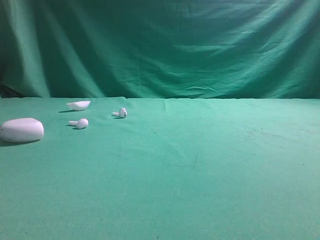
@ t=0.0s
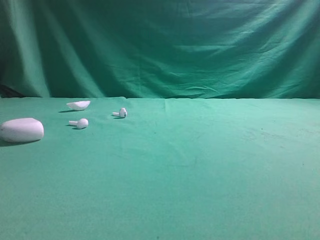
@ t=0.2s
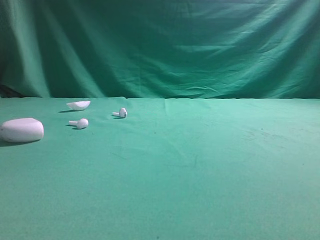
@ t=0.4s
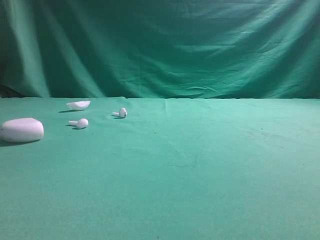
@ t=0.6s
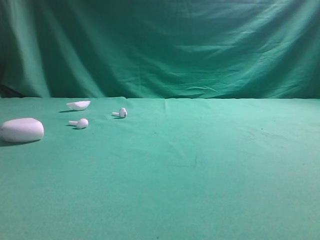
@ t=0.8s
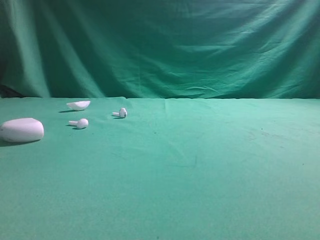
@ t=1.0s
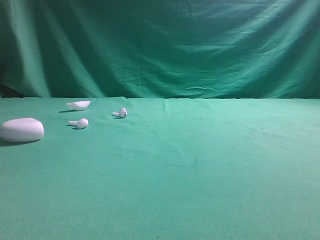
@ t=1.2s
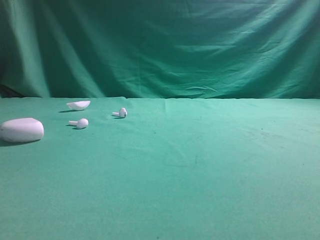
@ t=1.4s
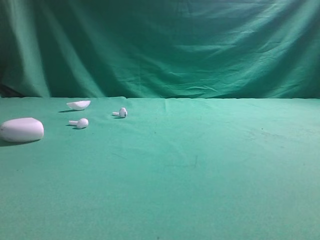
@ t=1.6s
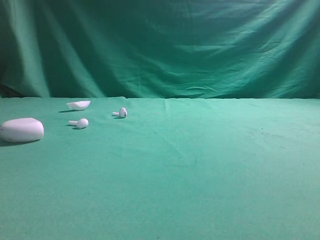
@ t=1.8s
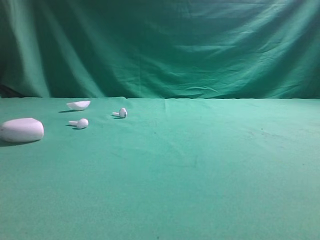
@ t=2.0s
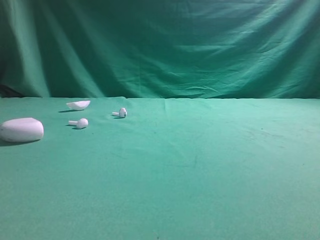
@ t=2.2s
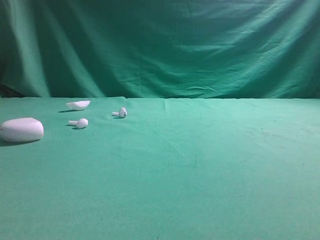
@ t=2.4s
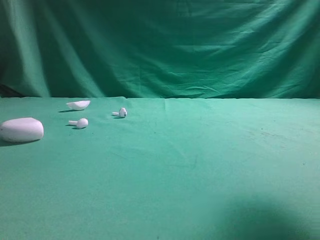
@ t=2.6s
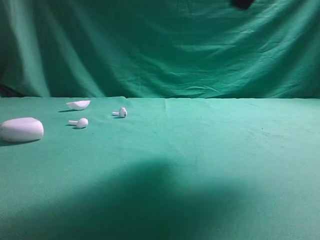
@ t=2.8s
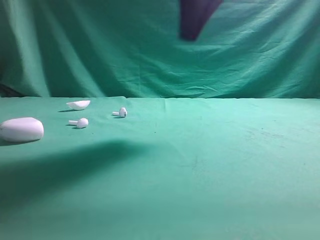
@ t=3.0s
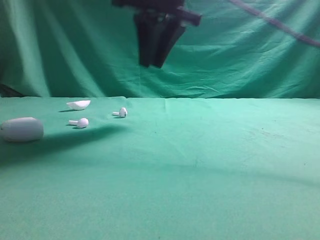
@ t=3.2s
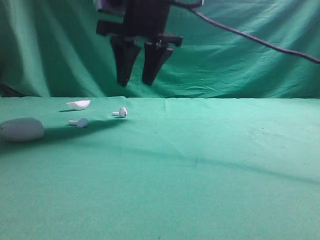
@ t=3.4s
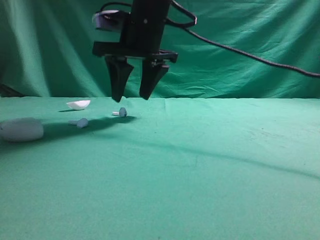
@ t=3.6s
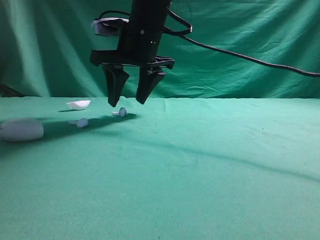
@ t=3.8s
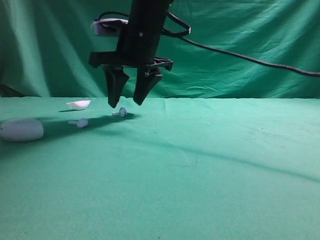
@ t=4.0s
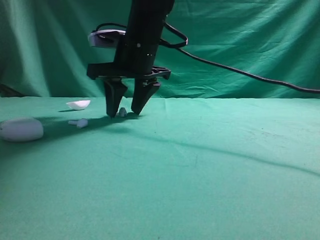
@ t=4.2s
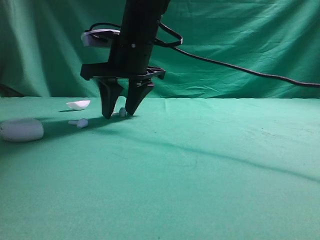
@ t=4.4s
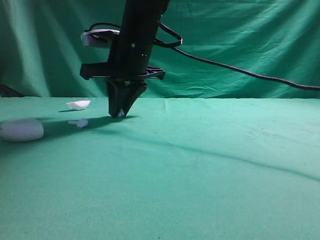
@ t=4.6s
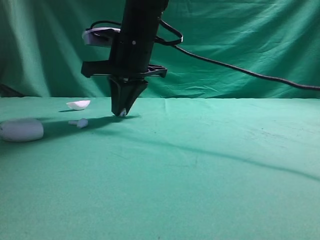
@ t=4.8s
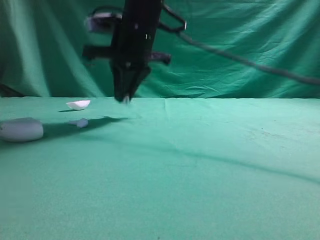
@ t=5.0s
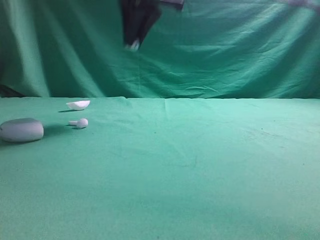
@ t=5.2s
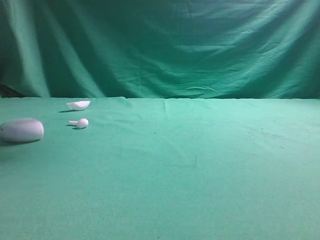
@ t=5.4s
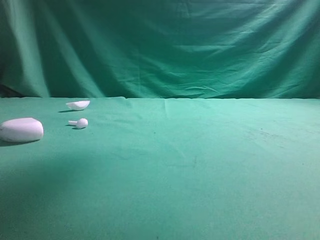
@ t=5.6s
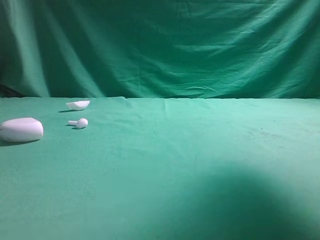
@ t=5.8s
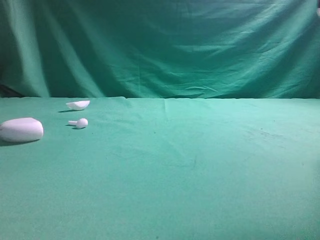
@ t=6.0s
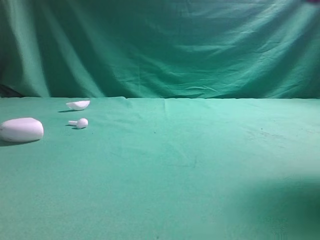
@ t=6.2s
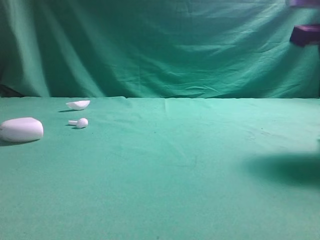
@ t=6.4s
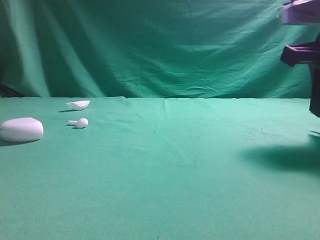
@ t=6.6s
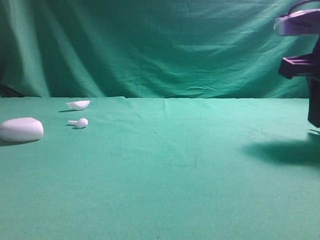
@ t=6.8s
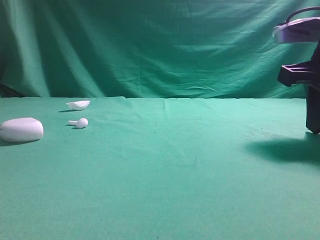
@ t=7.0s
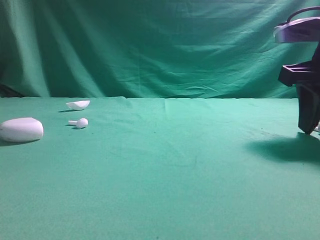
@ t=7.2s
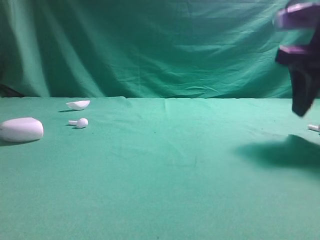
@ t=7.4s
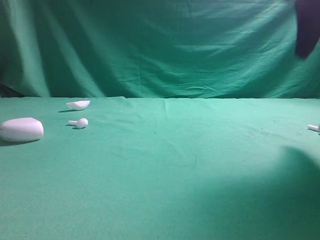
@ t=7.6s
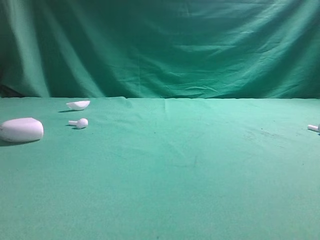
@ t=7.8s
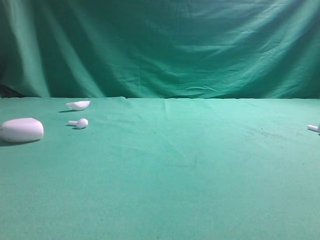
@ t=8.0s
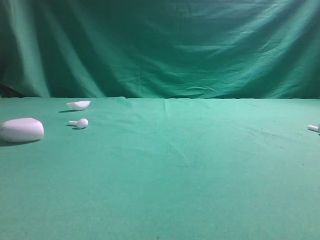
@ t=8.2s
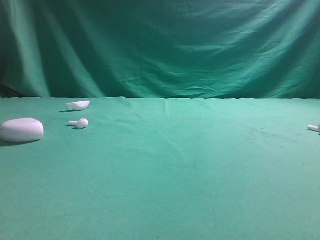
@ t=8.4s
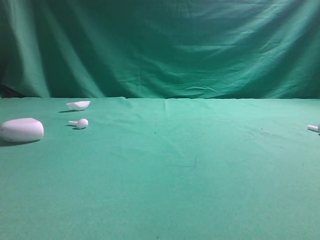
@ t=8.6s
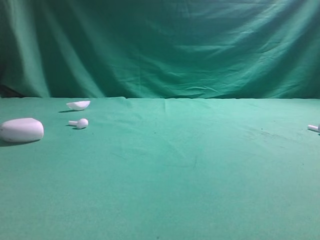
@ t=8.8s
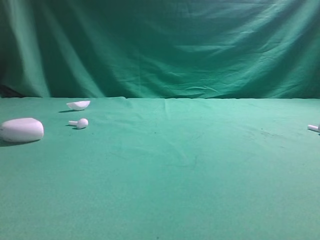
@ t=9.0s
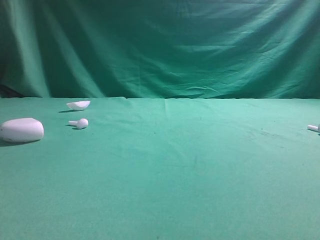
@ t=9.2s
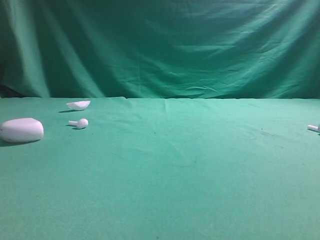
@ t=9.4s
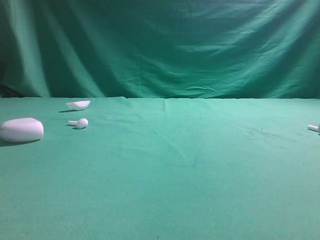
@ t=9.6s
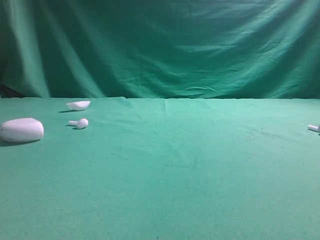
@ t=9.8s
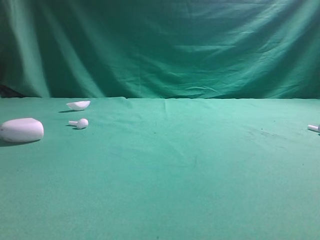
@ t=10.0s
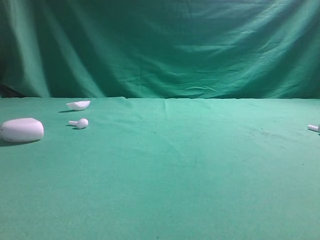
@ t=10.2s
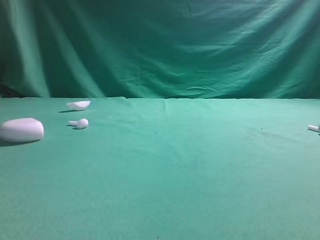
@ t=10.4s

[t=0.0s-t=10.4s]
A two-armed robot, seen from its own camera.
Step, t=0.0s to t=5.0s: Grasp the Bluetooth earbud.
Step, t=5.2s to t=7.4s: Place bluetooth earbud on the right side of the table.

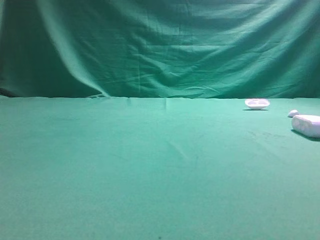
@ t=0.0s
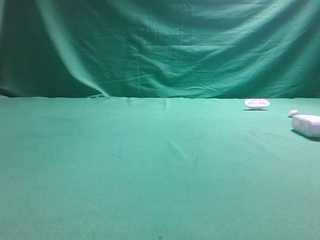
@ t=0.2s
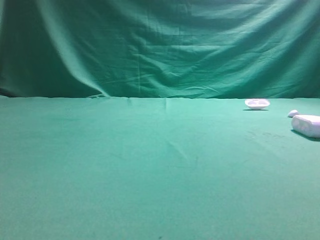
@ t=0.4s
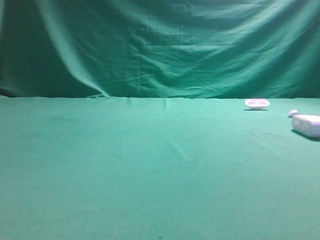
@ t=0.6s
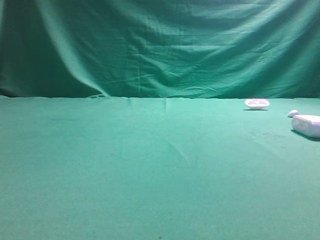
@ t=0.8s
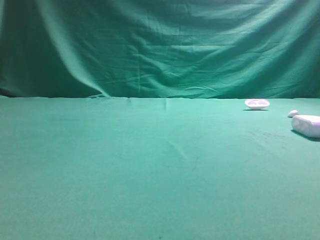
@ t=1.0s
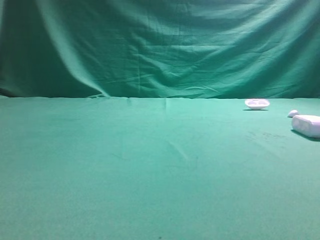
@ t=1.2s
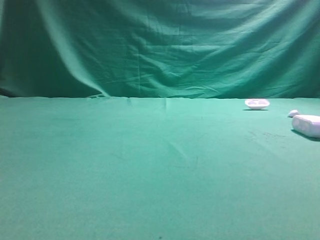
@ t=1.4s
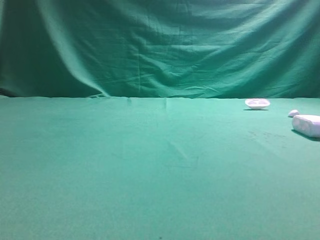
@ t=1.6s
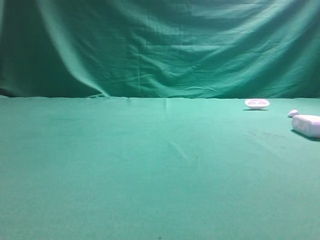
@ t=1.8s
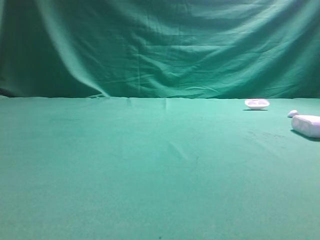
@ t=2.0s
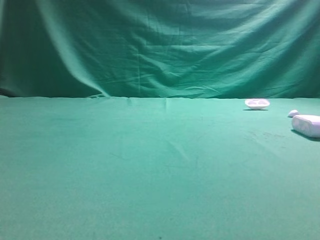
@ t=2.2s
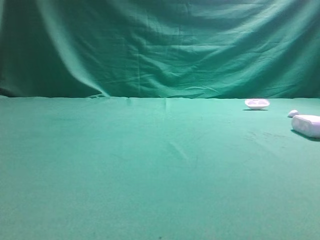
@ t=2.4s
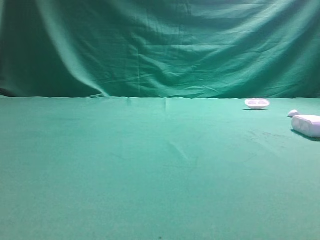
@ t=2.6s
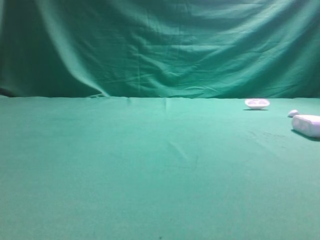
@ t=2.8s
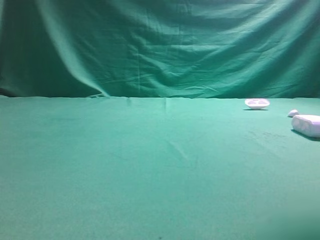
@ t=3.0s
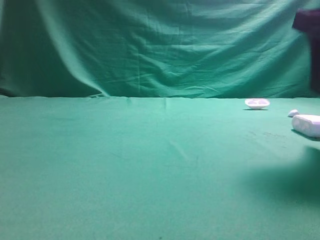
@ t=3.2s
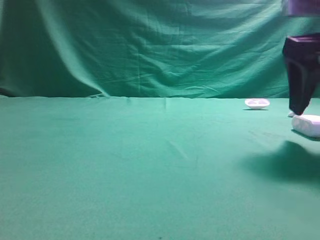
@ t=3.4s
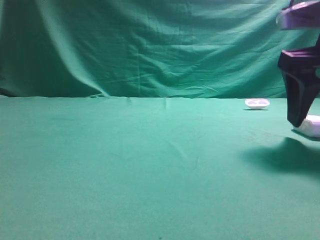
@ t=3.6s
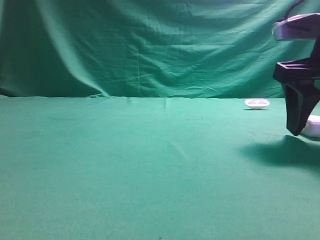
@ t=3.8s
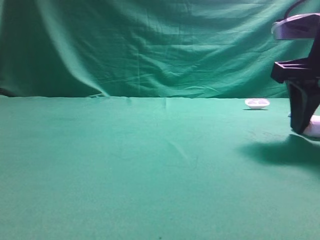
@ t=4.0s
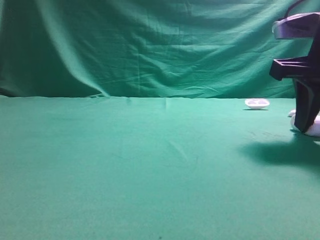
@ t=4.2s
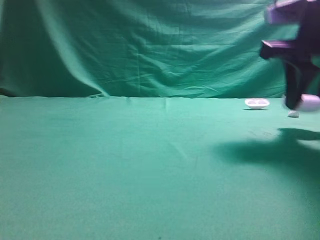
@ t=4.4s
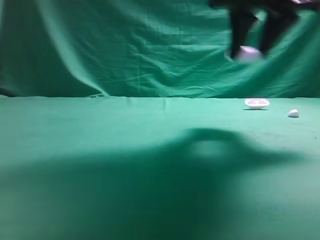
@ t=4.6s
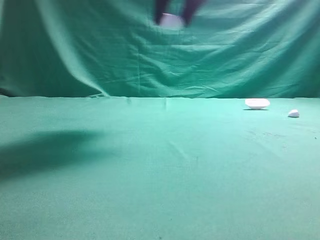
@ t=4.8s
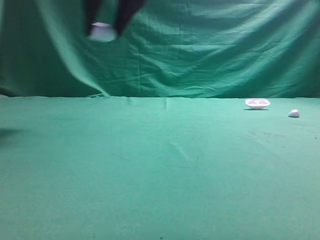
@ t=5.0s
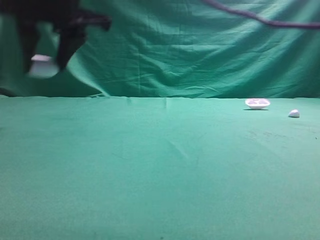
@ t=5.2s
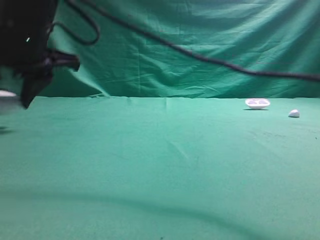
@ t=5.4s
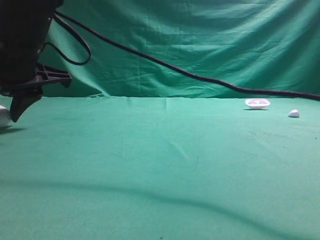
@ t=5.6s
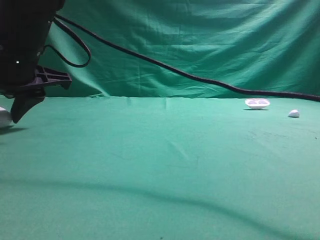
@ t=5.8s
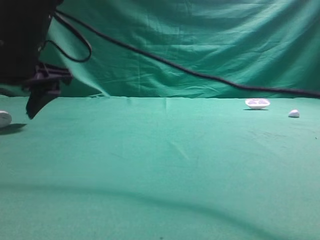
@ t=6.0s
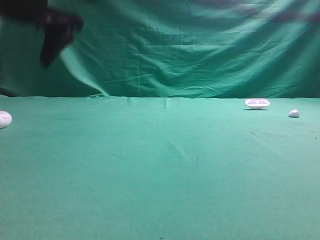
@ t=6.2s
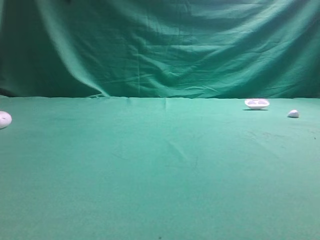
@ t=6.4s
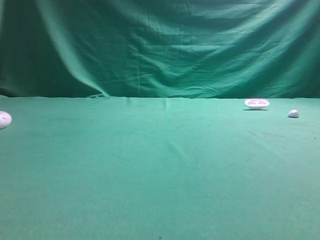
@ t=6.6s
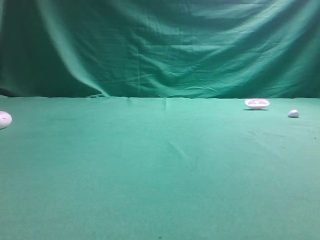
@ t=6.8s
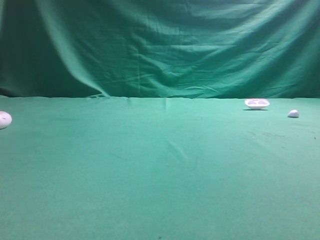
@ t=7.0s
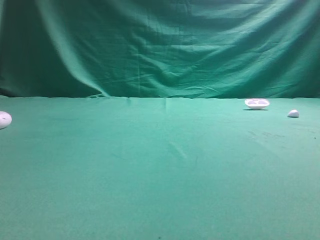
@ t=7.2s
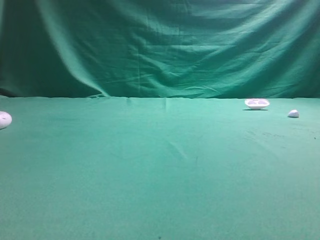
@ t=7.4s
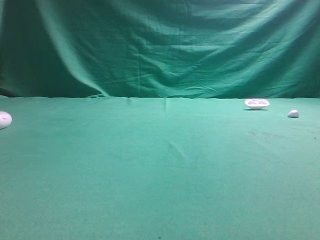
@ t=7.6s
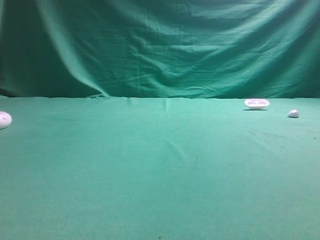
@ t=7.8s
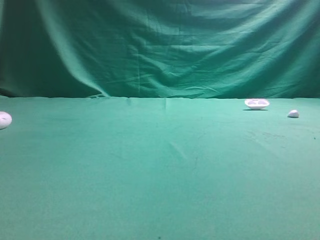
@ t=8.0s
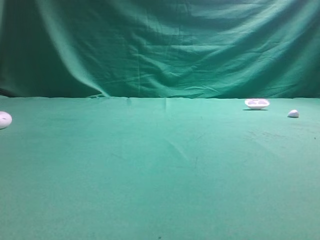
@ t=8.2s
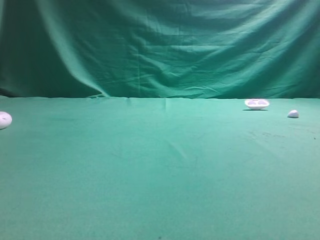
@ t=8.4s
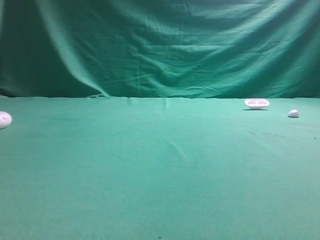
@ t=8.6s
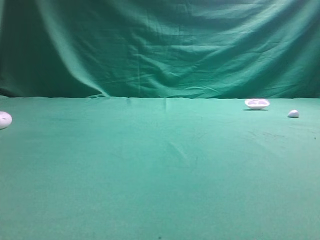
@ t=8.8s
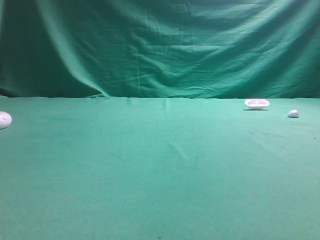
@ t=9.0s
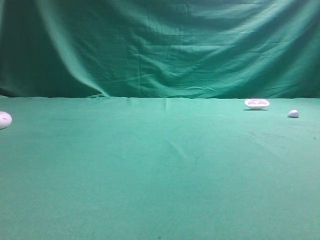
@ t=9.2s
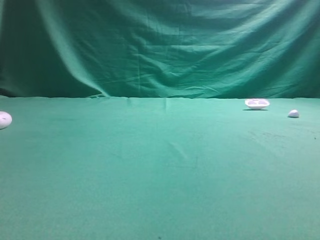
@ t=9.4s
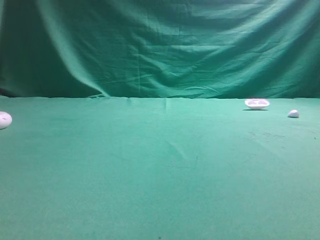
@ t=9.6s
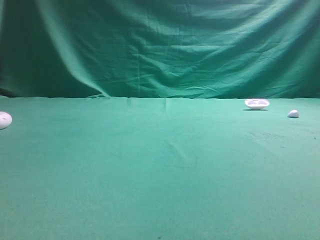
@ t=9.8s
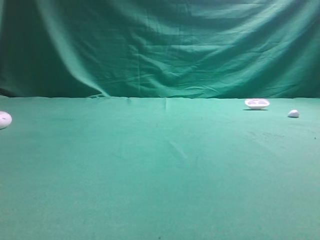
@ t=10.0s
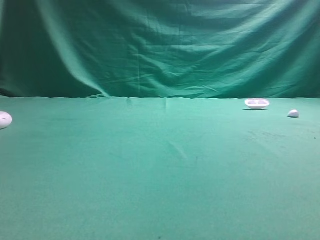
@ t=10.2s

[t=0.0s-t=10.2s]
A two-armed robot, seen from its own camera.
Step, t=0.0s to t=4.4s: Grasp the Bluetooth earphone case.
Step, t=4.6s to t=6.0s: Place bluetooth earphone case on the left side of the table.

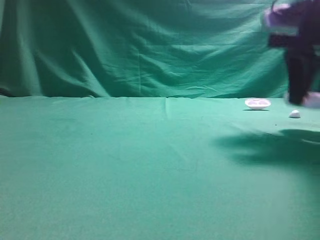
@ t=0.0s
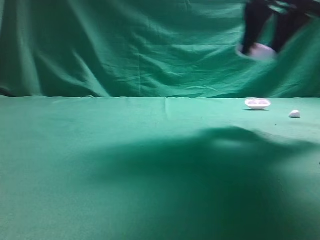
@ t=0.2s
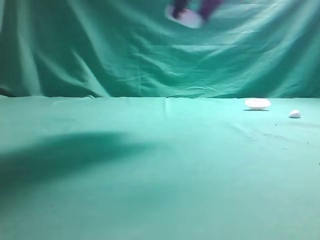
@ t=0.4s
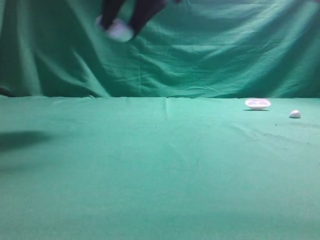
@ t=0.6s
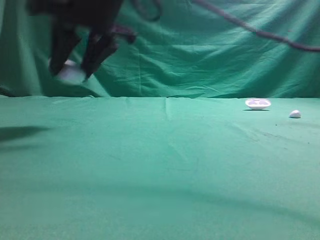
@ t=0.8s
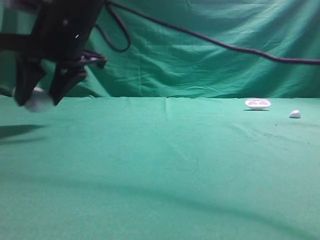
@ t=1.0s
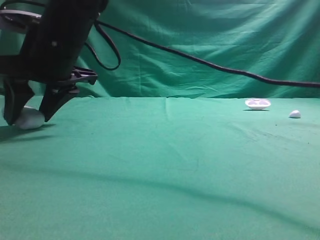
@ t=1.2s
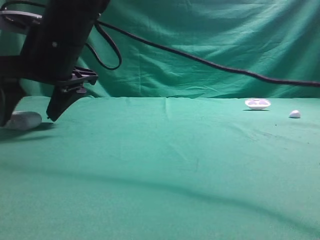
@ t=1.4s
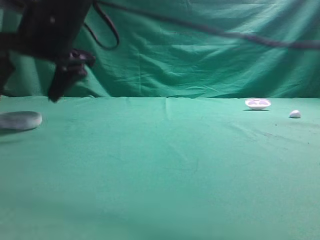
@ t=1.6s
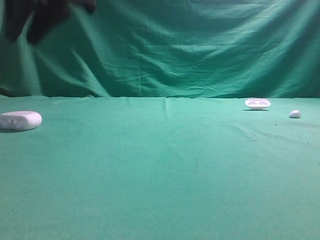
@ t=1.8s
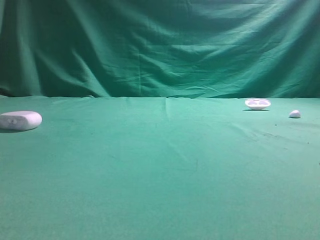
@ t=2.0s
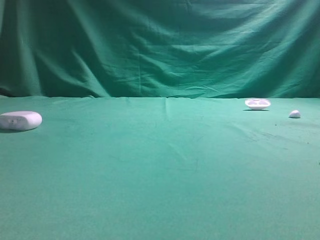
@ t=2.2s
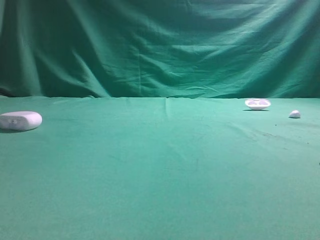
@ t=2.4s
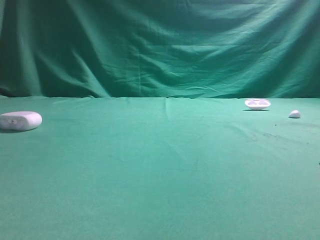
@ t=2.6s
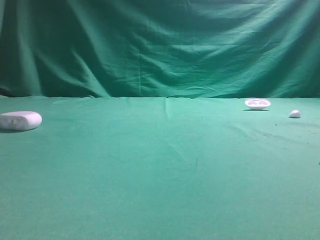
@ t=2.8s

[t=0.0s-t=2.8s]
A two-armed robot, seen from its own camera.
Step, t=0.2s to t=1.6s: Place bluetooth earphone case on the left side of the table.
